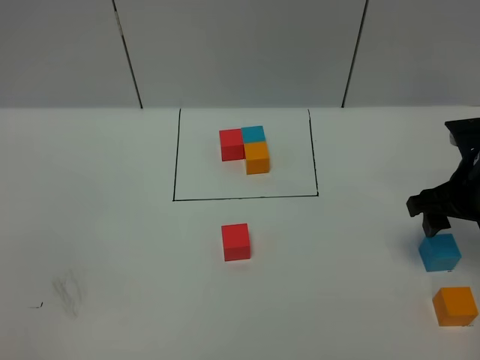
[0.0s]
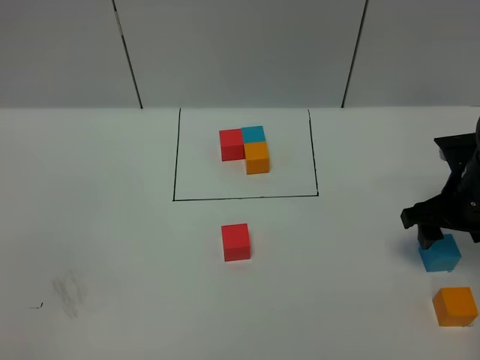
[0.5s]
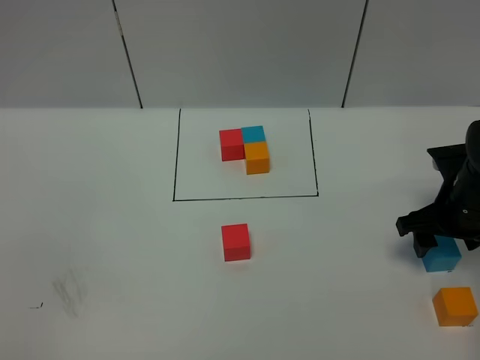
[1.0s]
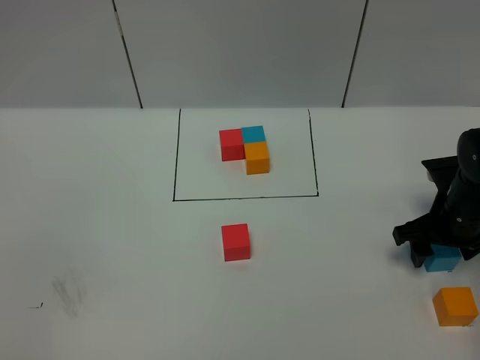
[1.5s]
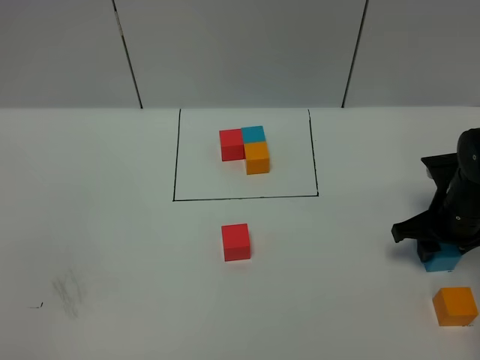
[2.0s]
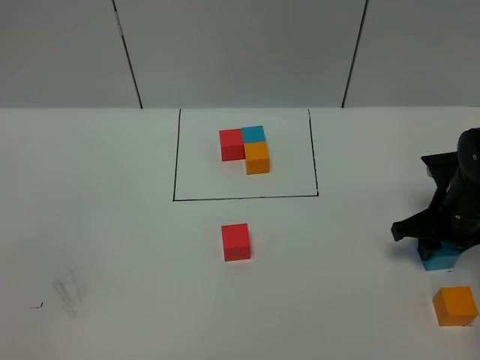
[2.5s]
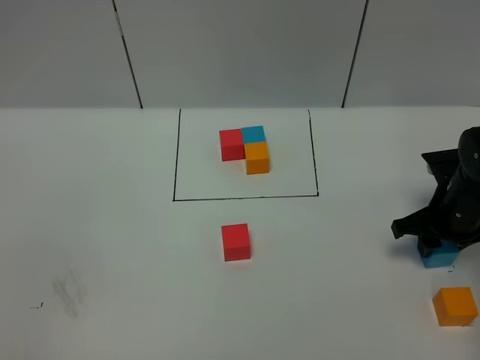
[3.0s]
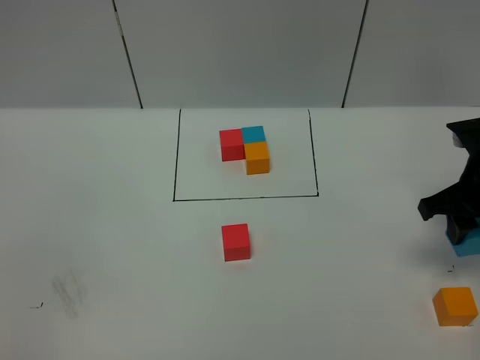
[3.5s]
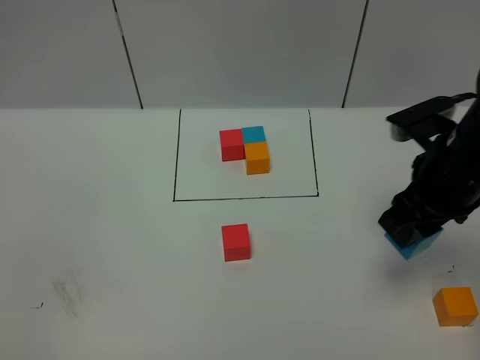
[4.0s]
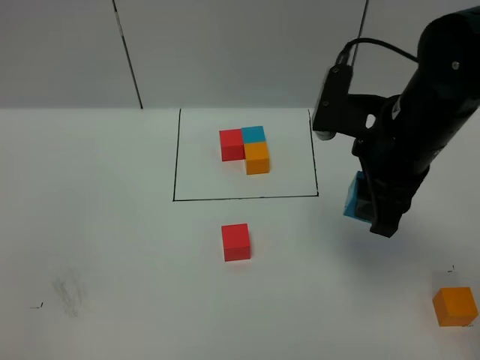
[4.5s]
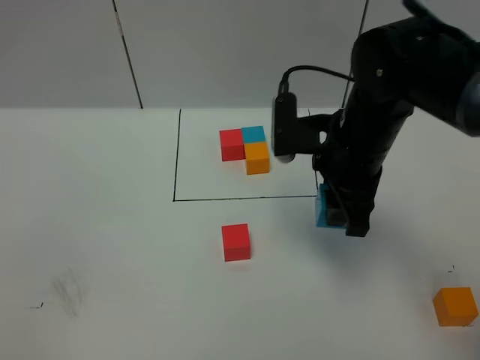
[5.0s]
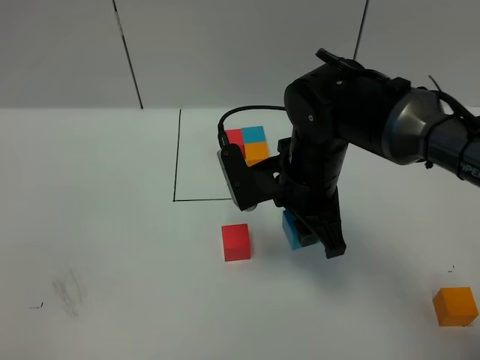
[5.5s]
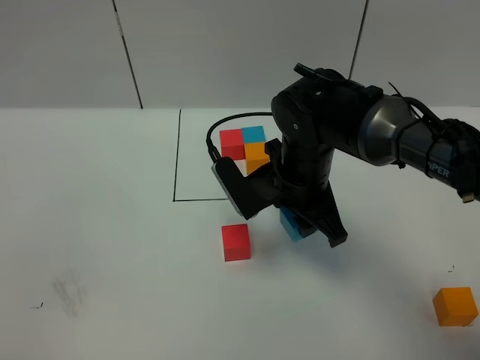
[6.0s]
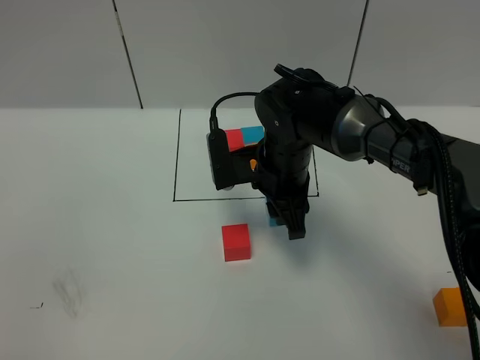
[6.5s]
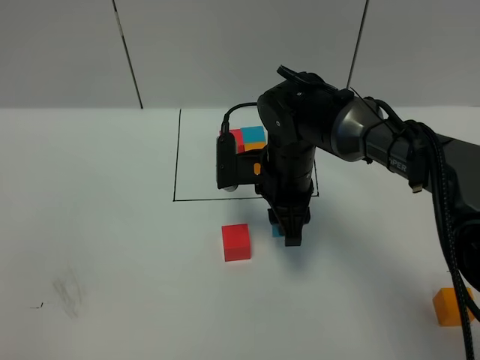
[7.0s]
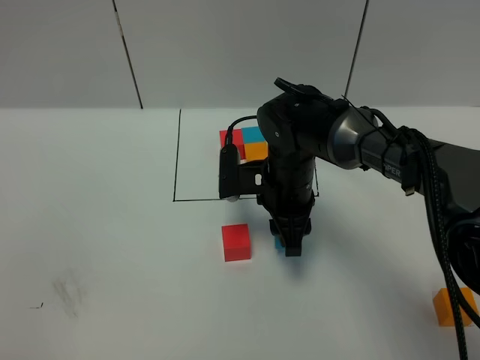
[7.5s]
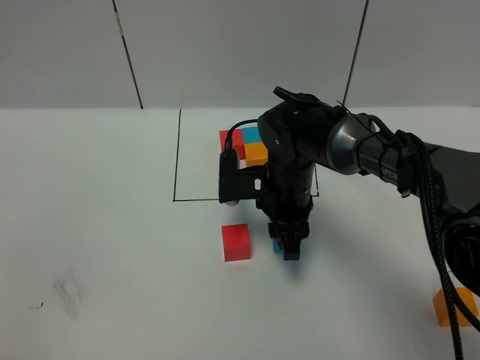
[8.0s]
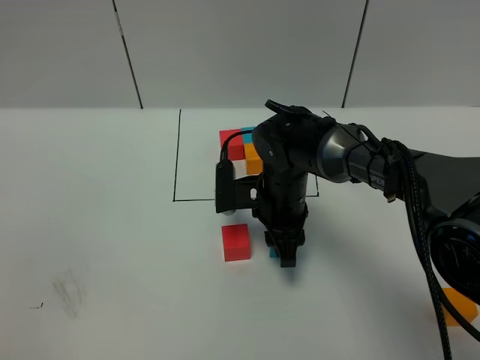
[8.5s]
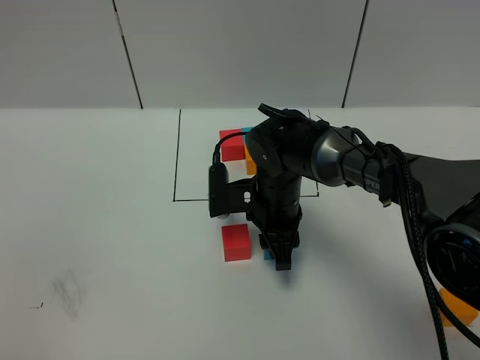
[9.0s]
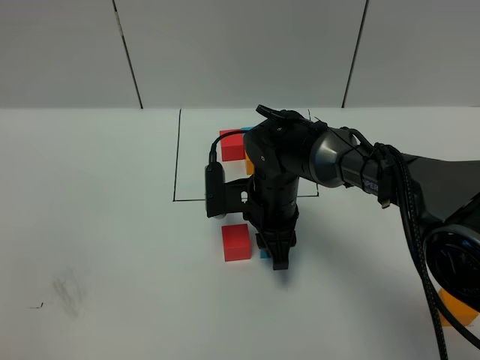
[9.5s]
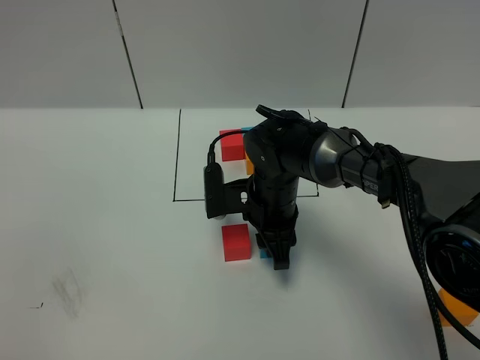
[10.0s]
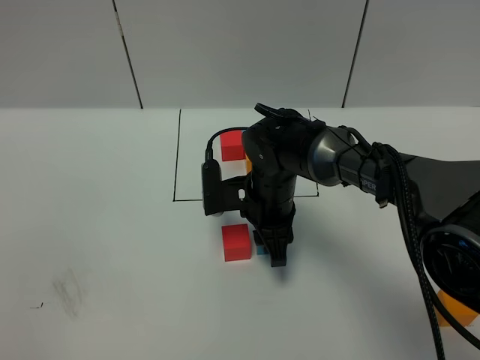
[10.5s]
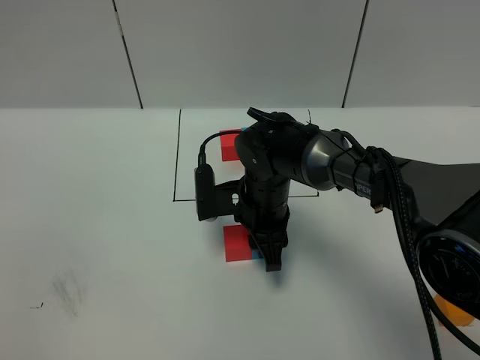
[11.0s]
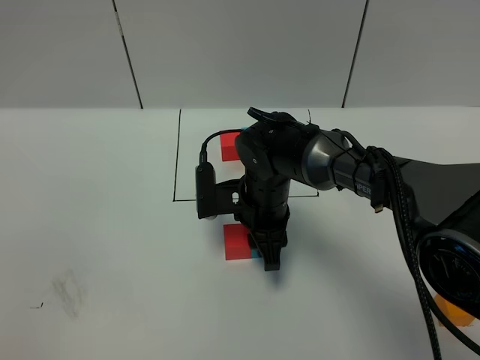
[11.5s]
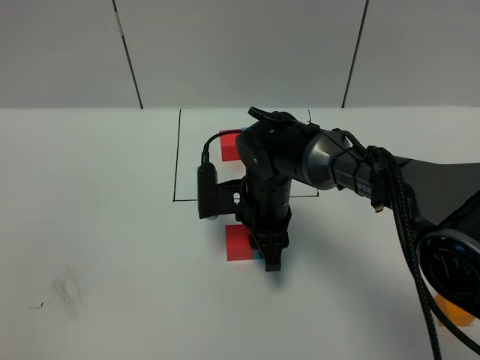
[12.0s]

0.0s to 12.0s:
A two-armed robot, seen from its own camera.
Task of the whole recording: According to the building block template in front, assemble the scattered blocks together.
0.0s to 2.0s: The right gripper heads downward, covering some 5 cm, and closes up.
2.0s to 4.0s: The right gripper shifts roughly 15 cm upward, to the left and backward.
4.0s to 6.0s: The right gripper heads to the left and downward, covering roughly 15 cm.
6.0s to 8.0s: The right gripper travels downward by approximately 5 cm.
8.0s to 10.0s: The grippers stay close to where they were, moving slightly.
10.0s to 12.0s: Both grippers stay about where they are.

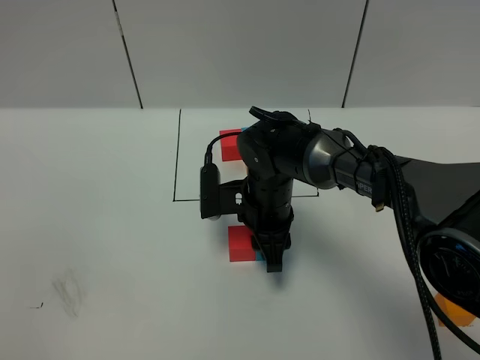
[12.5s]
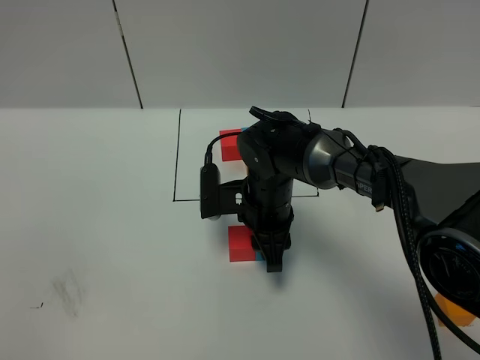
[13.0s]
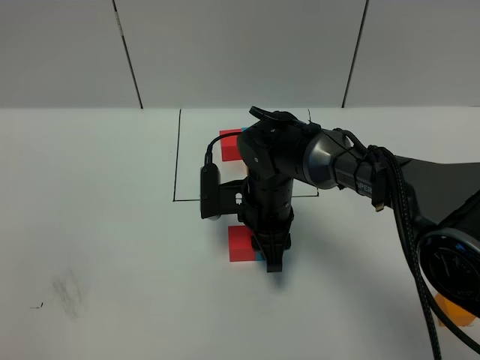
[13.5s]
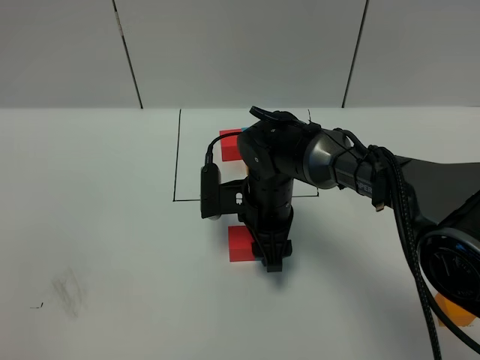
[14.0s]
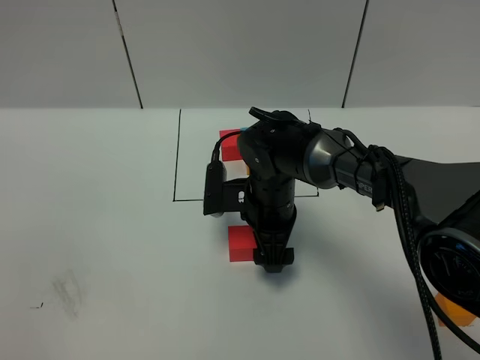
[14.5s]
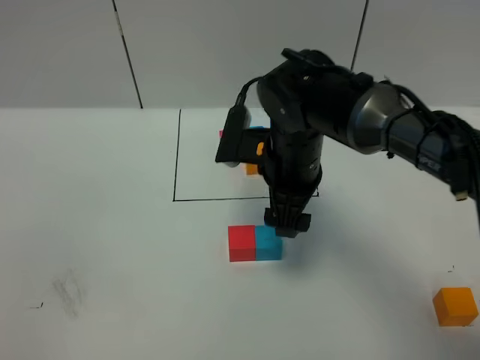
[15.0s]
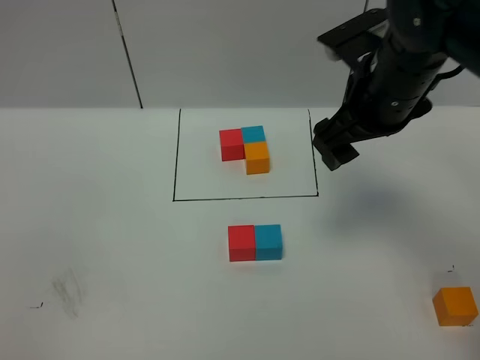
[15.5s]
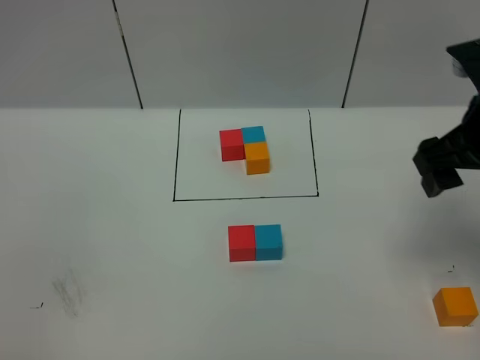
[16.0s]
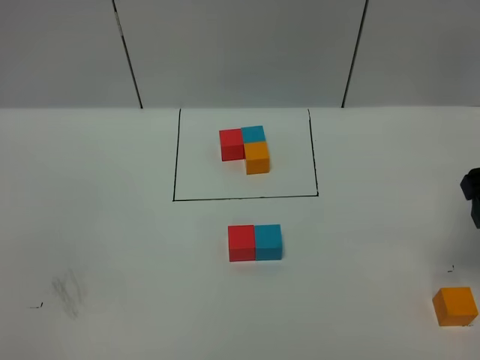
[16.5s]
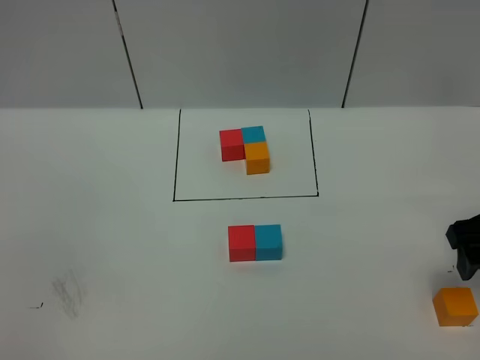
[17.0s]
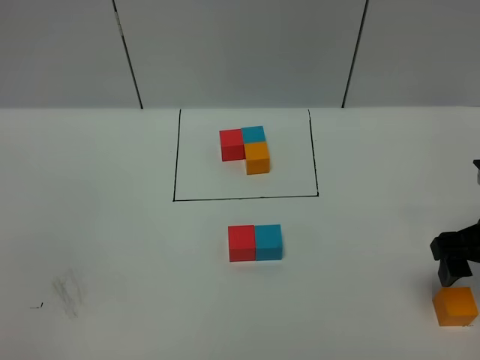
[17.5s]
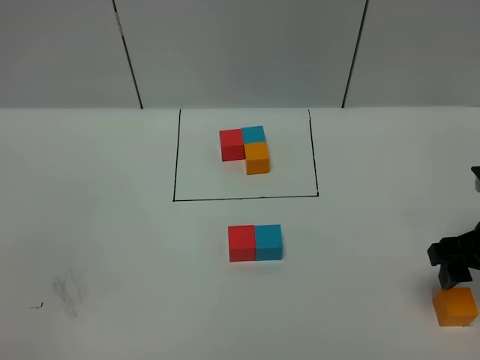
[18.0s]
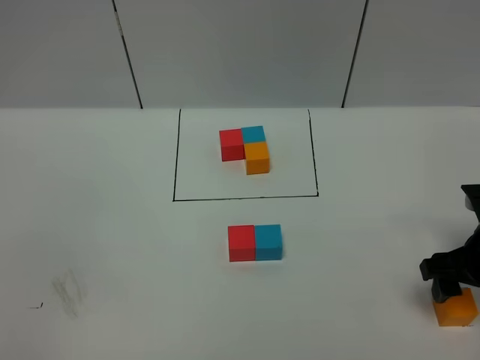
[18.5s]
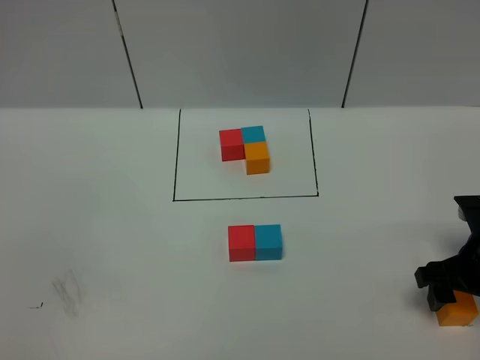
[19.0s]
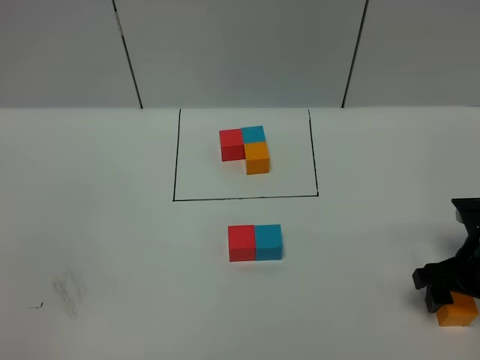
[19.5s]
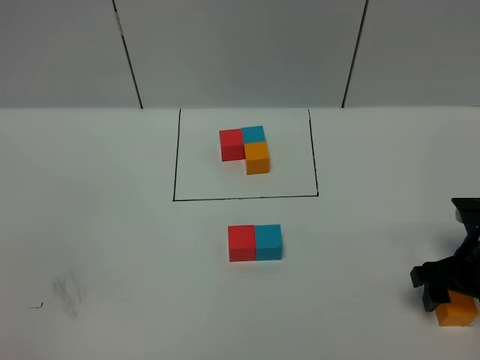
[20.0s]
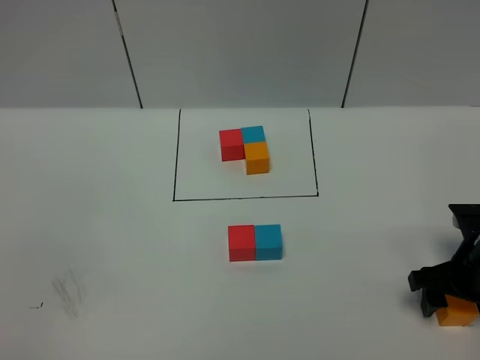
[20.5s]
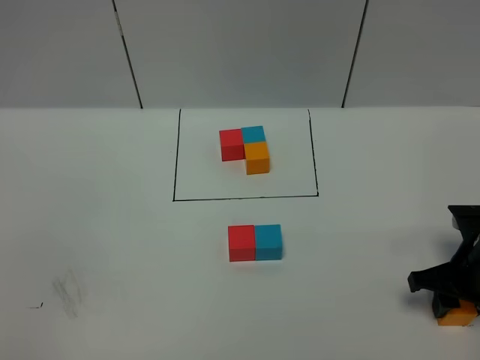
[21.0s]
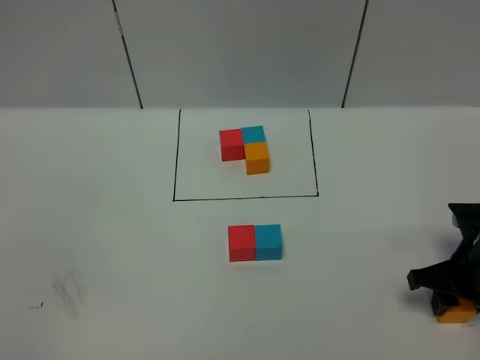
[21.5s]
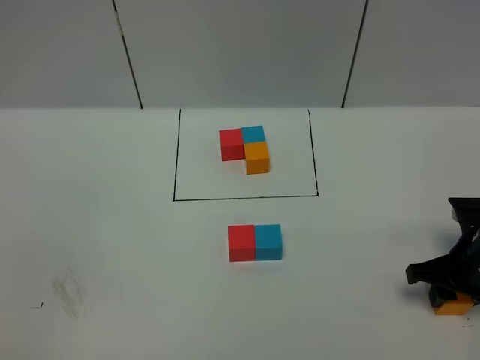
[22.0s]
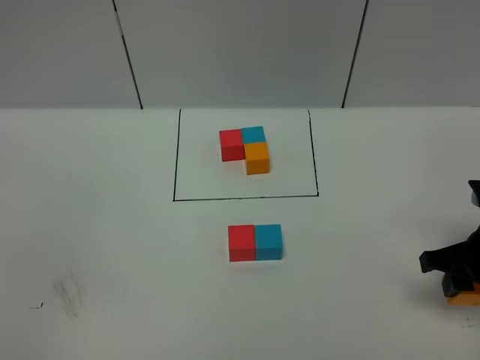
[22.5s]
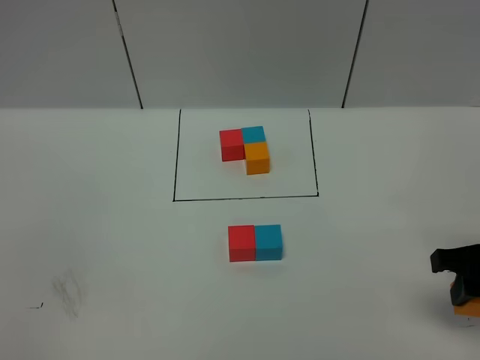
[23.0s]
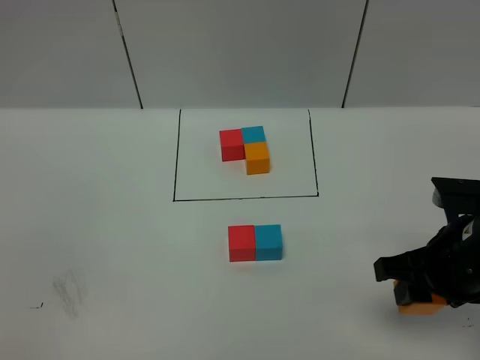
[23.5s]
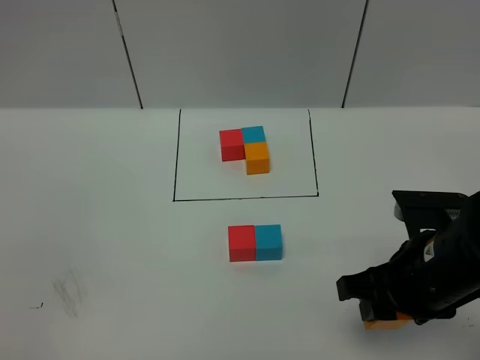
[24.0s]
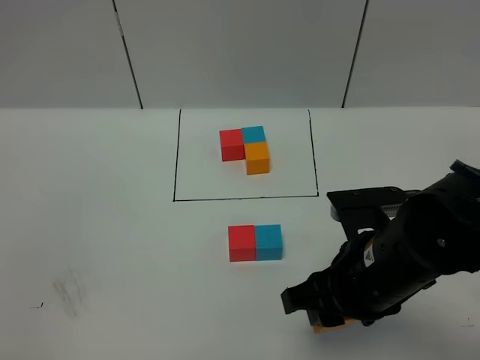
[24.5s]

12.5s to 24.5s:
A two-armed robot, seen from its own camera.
Task of the whole recording: According to the building block template in front, assemble the scattered blocks together.
Step, 12.5s to 14.5s: Put the blue cube on the right of the red cube.
12.5s to 14.5s: The right gripper opens its fingers.
14.5s to 16.5s: The right gripper shifts roughly 30 cm to the right and upward.
16.5s to 18.5s: The right gripper goes some 15 cm downward.
18.5s to 20.5s: The grippers stay close to where they were, moving slightly.
20.5s to 22.5s: The right gripper is displaced upward by approximately 5 cm, and closes up.
22.5s to 24.5s: The right gripper moves to the left, approximately 15 cm.

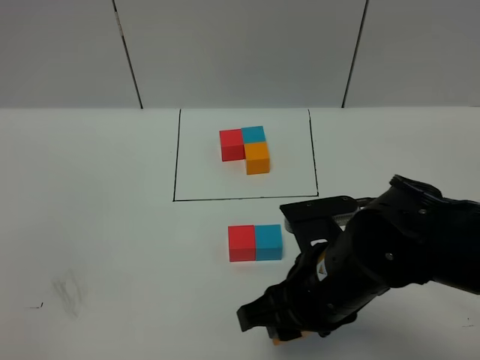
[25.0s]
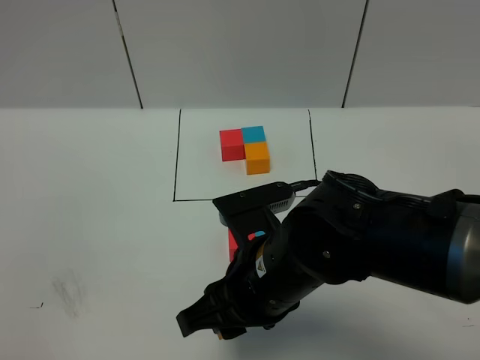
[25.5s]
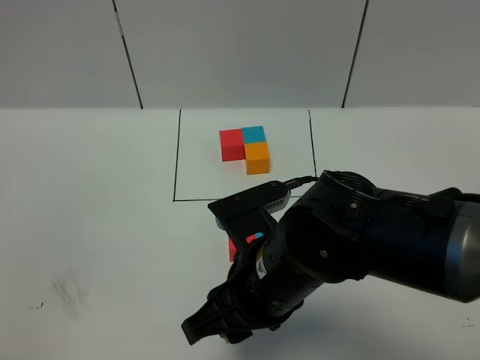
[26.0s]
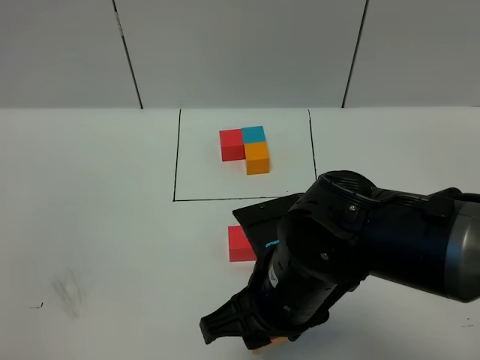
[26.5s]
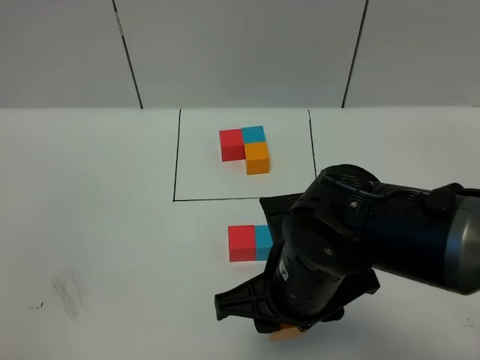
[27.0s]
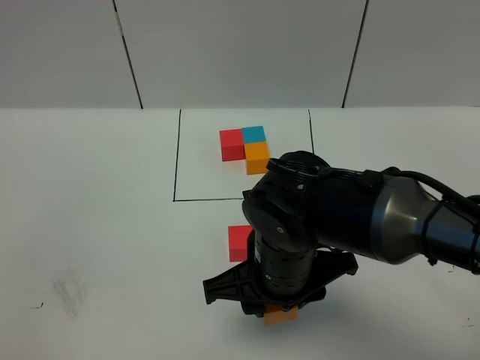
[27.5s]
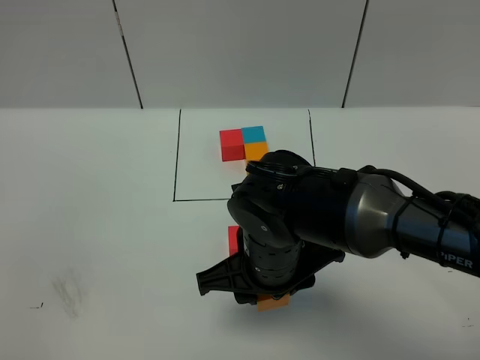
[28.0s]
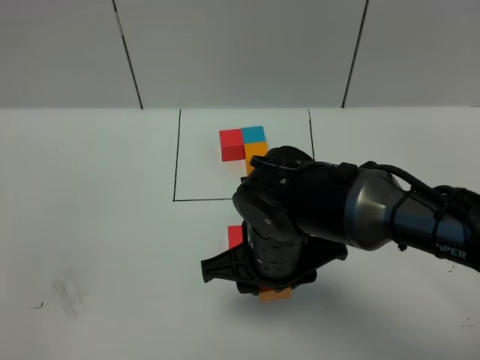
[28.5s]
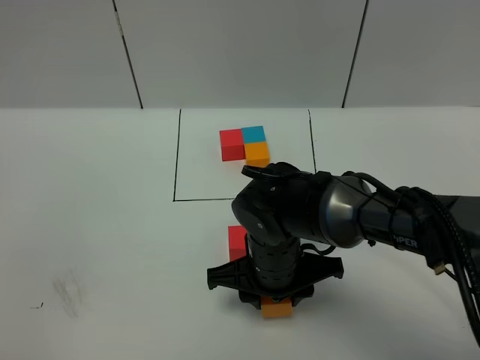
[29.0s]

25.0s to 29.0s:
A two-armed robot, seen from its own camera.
Task of the whole recording: According to the building block template in front, assemble the scattered blocks together.
25.0s to 27.0s: The grippers move only a little.
27.0s to 29.0s: The right gripper goes roughly 10 cm downward and forward.
